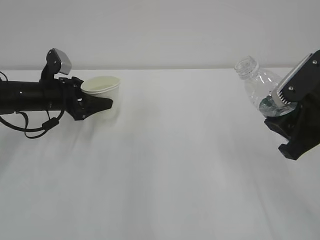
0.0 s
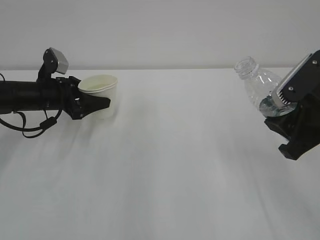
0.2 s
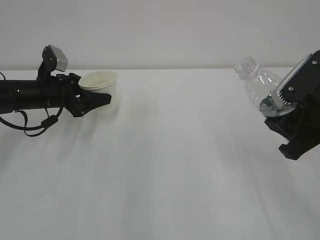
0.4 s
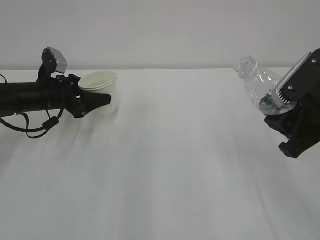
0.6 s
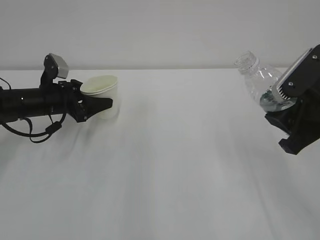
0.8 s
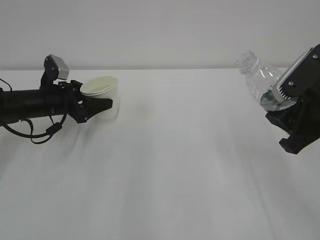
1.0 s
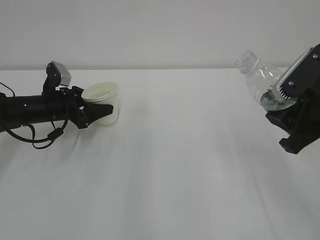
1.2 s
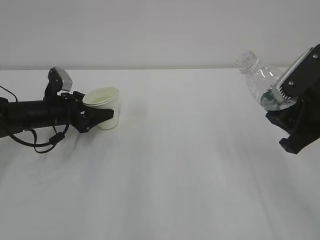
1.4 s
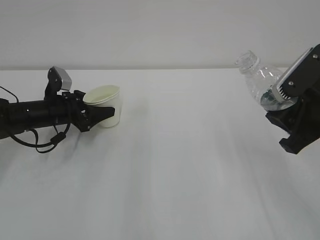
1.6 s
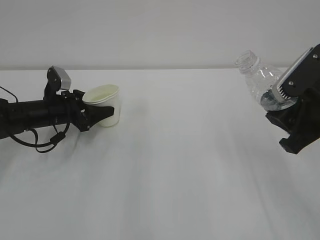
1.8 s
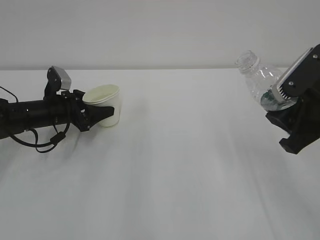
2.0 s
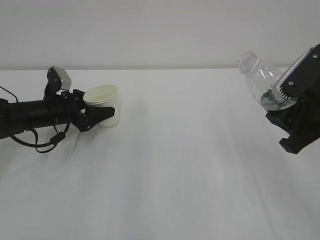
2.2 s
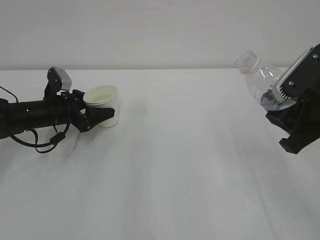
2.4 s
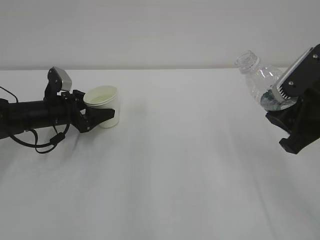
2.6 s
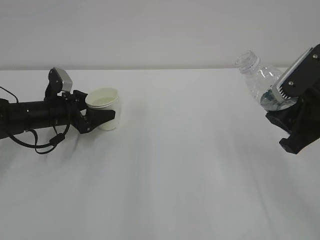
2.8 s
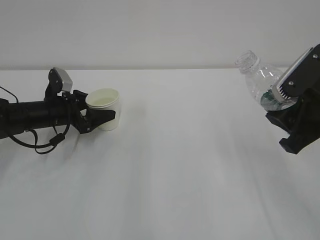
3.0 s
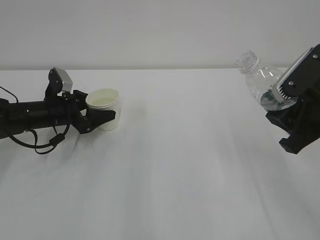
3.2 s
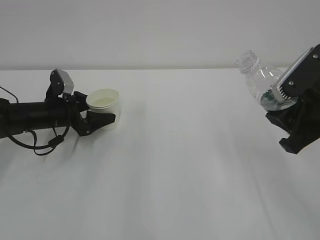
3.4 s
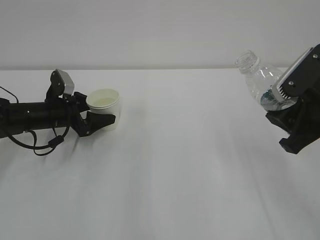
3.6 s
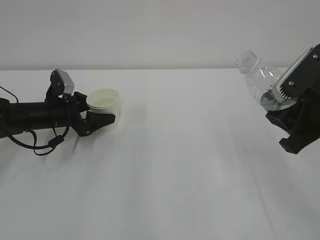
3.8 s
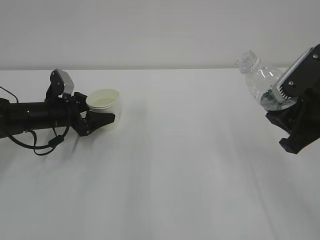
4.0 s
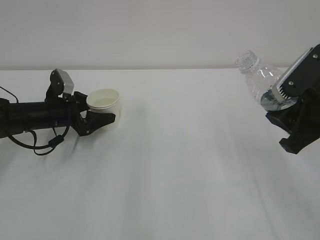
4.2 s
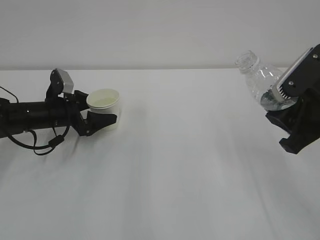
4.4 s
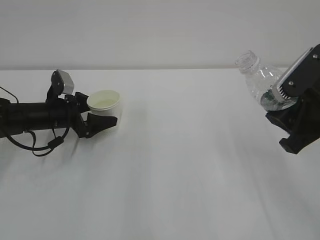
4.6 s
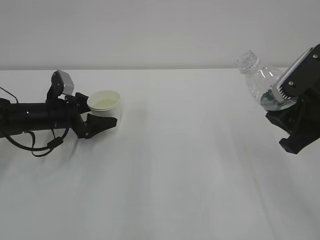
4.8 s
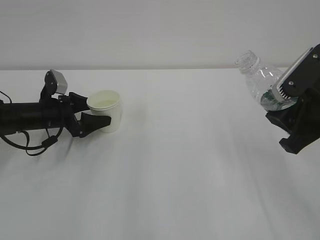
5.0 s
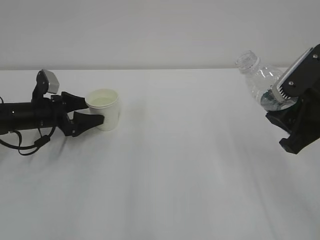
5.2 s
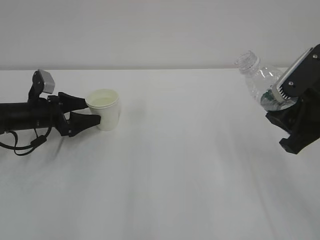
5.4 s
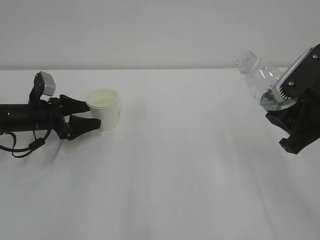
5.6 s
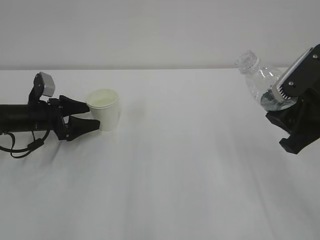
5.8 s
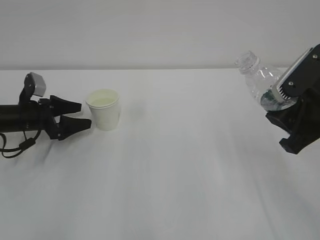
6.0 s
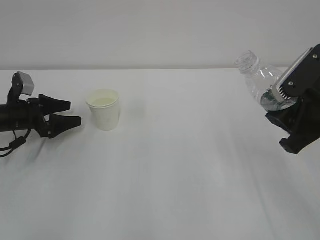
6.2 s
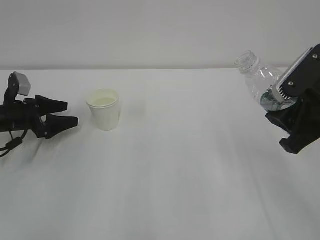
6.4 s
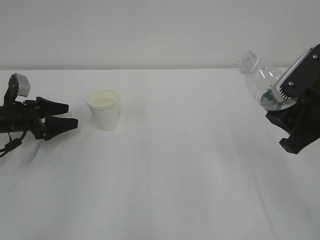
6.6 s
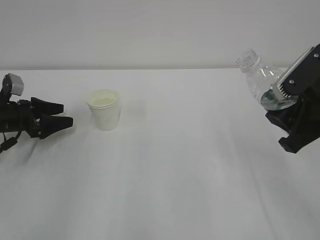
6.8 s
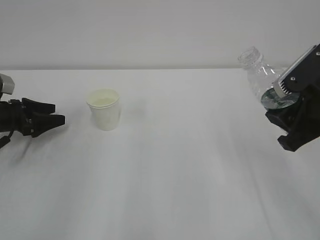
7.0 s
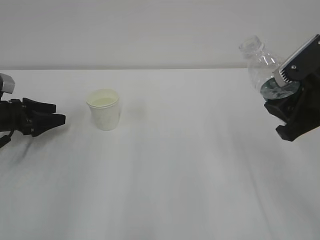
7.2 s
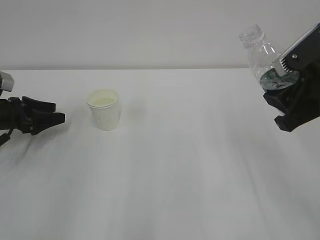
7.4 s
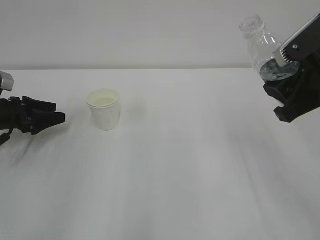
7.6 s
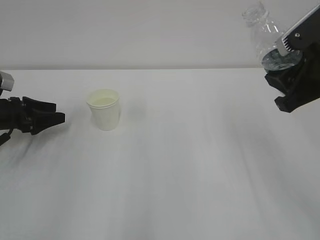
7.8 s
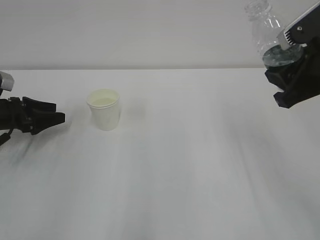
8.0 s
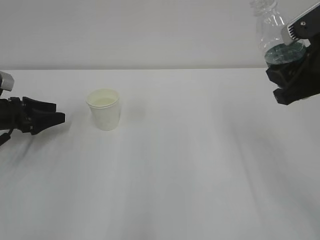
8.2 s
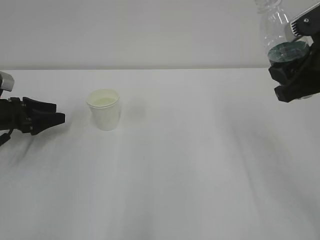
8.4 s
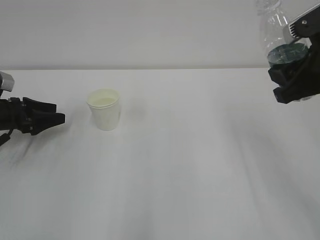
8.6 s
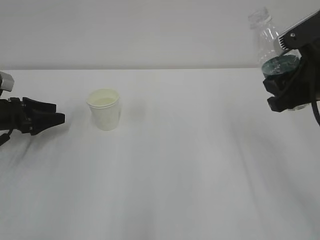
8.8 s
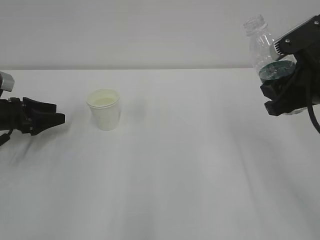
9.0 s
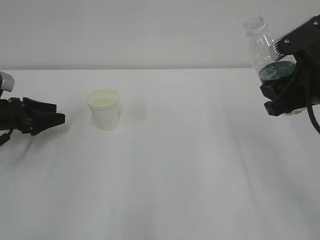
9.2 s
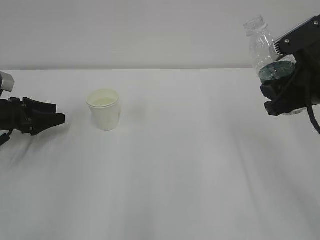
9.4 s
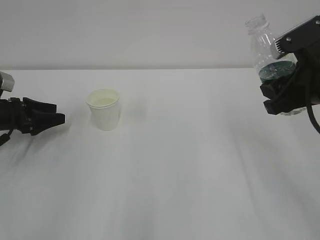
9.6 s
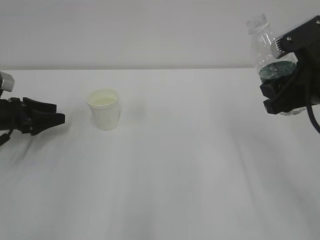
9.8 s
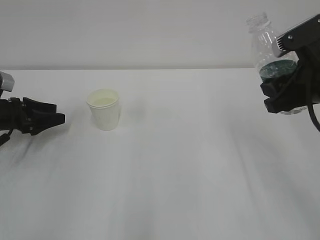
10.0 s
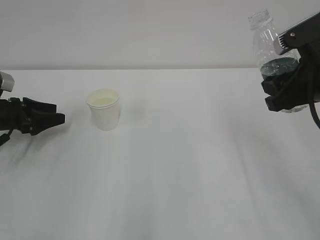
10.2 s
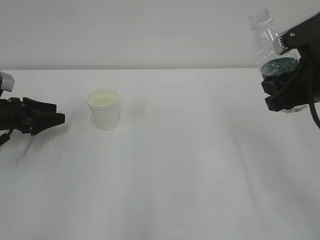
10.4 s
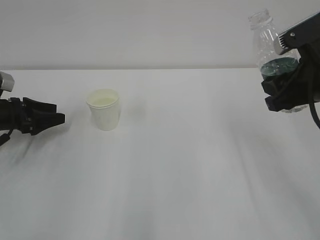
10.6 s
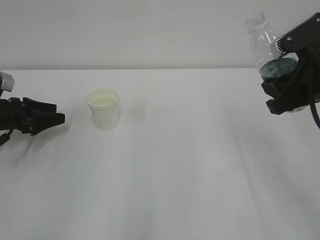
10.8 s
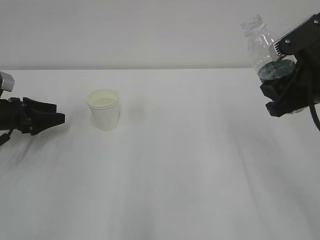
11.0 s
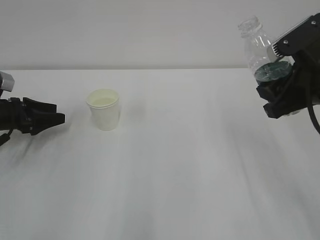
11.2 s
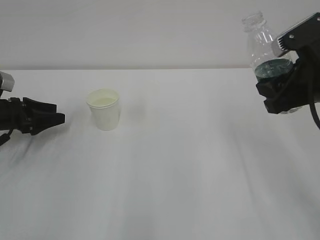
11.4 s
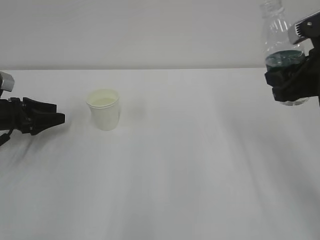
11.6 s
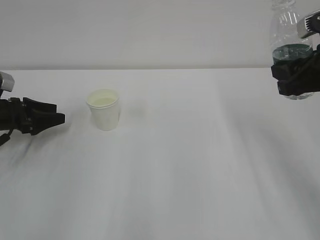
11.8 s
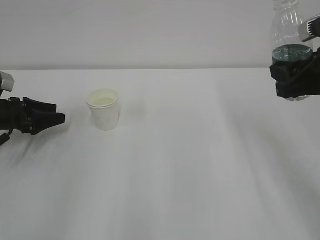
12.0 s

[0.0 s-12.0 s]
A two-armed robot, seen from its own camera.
0.0 to 1.6 s: The grippers make only small movements.
1.6 to 4.4 s: Both grippers stay put.
4.4 to 6.0 s: The left gripper is displaced to the left by approximately 5 cm.
6.0 to 7.6 s: The left gripper is displaced to the left by approximately 5 cm.
7.6 to 9.0 s: The grippers make only small movements.
9.0 to 10.4 s: Both grippers stay put.
10.4 to 12.0 s: The grippers stay close to where they were, moving slightly.

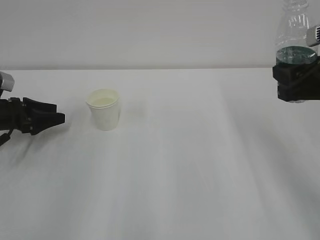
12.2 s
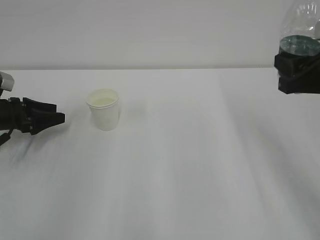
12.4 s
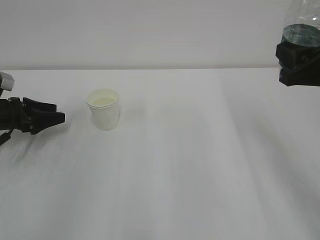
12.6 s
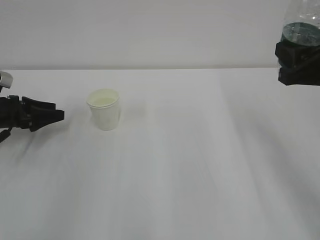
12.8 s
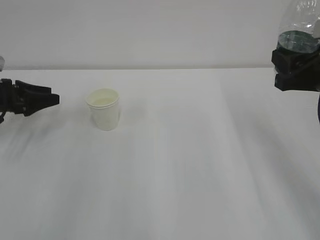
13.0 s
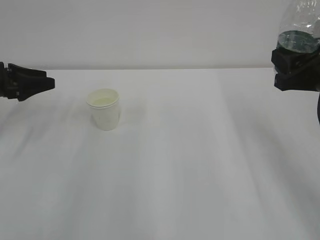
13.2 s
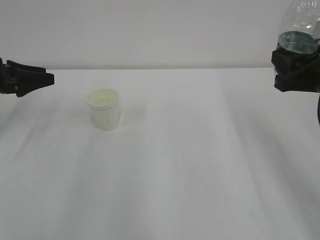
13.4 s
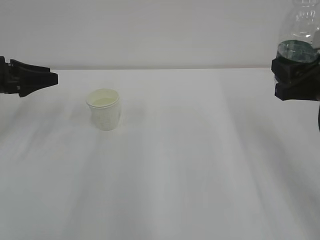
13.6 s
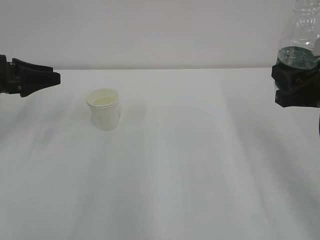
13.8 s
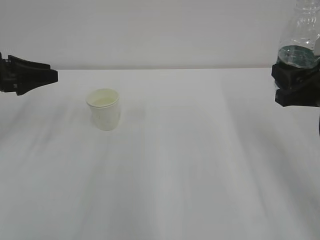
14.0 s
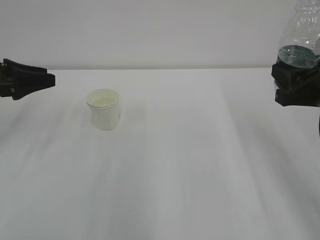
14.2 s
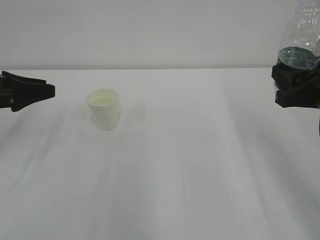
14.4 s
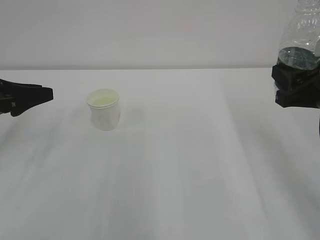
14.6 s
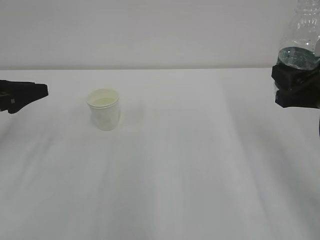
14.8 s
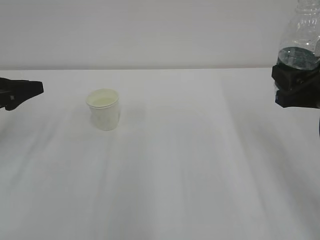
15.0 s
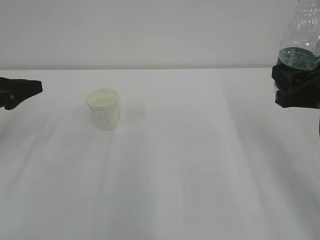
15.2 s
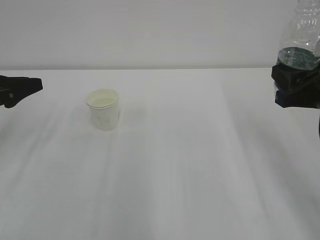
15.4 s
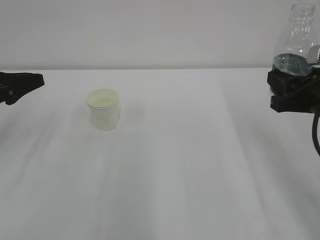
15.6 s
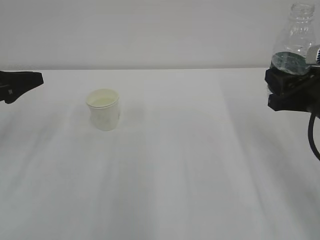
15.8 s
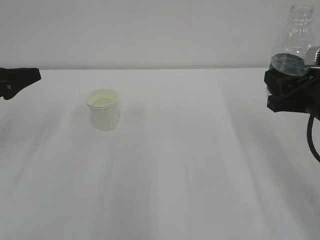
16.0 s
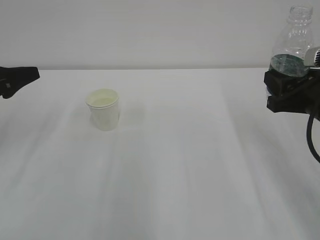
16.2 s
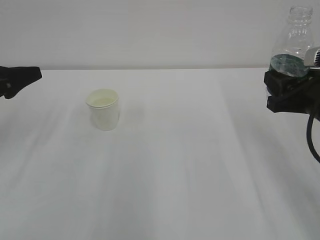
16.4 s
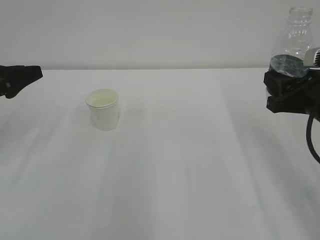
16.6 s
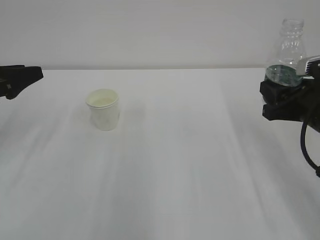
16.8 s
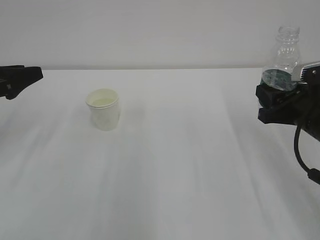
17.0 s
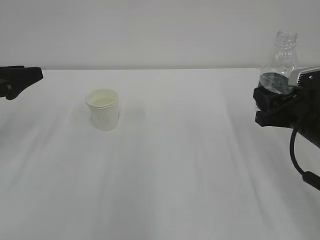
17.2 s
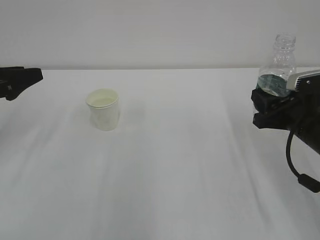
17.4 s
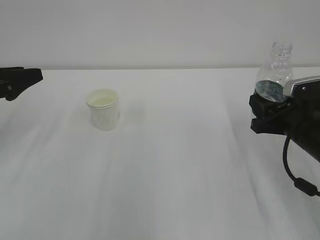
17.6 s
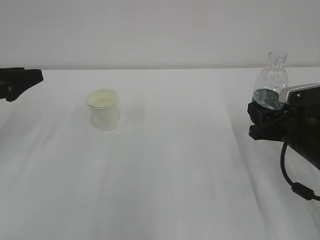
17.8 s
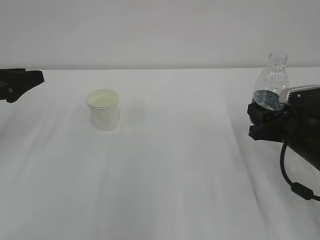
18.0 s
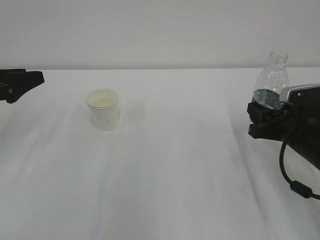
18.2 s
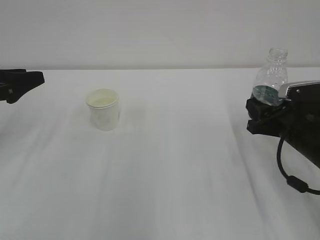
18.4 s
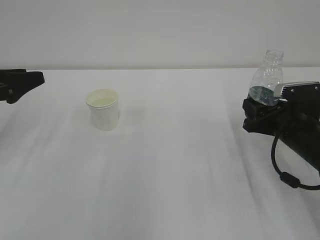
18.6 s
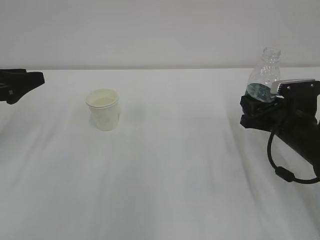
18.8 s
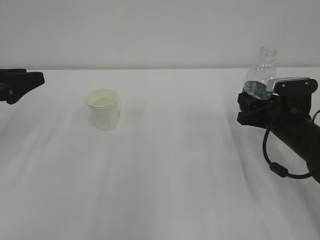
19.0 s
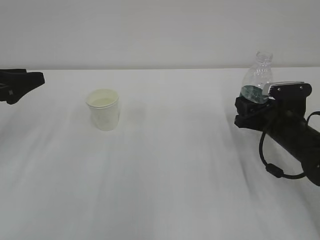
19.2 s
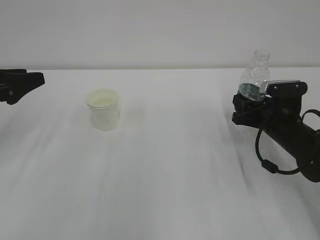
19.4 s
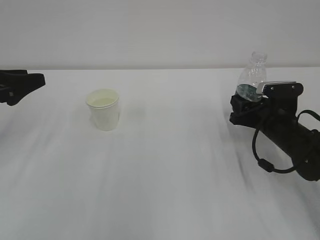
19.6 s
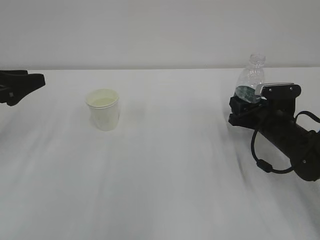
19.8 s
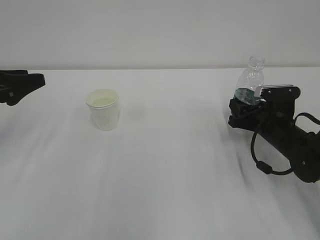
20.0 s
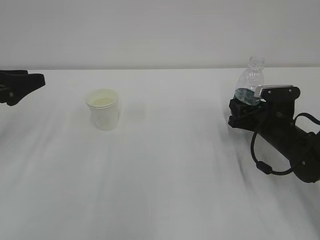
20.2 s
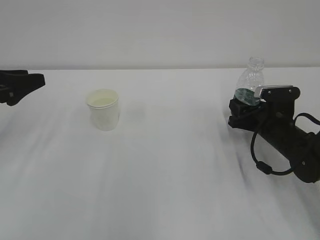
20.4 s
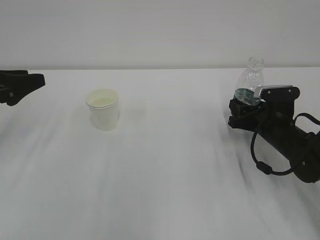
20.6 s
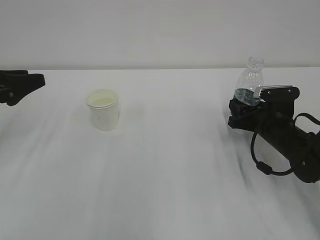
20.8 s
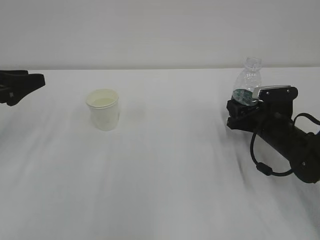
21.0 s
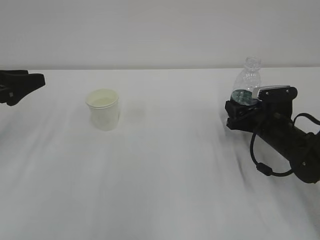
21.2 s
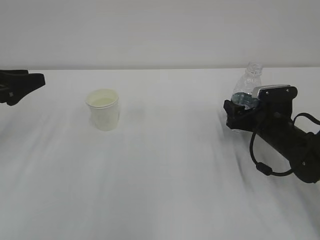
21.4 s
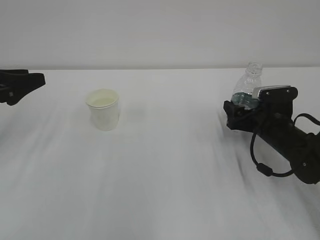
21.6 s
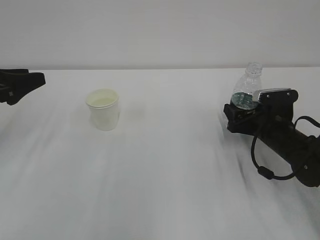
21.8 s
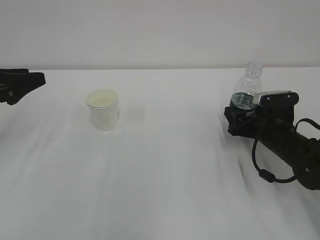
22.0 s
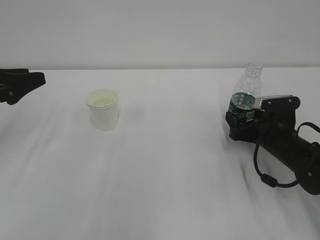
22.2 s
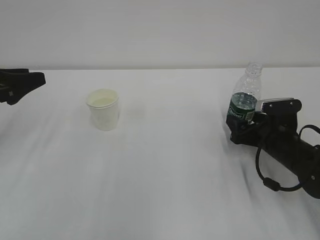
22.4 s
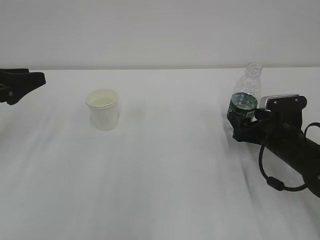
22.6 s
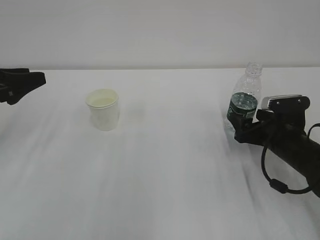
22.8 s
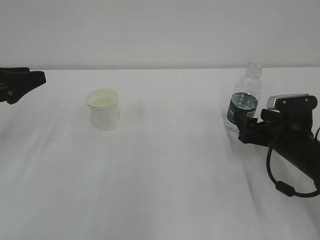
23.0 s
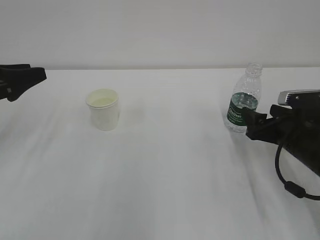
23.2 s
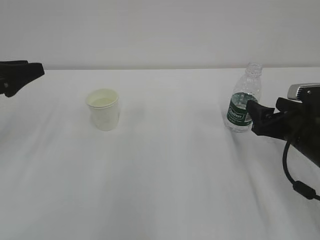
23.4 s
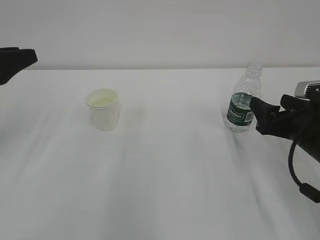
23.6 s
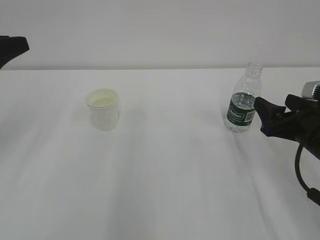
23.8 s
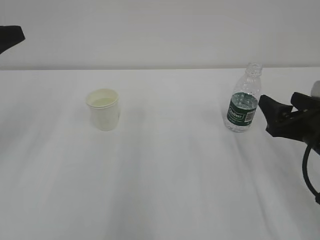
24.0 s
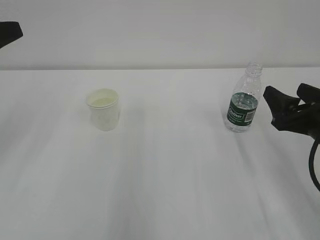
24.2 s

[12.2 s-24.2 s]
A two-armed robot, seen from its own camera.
12.2 to 13.8 s: The left gripper goes roughly 10 cm upward.
13.8 to 15.2 s: The left gripper is displaced backward by roughly 5 cm.
15.2 to 16.6 s: The grippers stay close to where they were, moving slightly.
16.6 to 18.2 s: The right gripper heads downward, covering about 10 cm.
18.2 to 19.8 s: The right gripper is displaced forward by about 5 cm.
19.8 to 21.2 s: Both grippers stay put.
21.2 to 22.6 s: The right gripper opens.
22.6 to 24.2 s: The left gripper moves upward, about 10 cm, while the right gripper is displaced upward and backward by about 15 cm.
